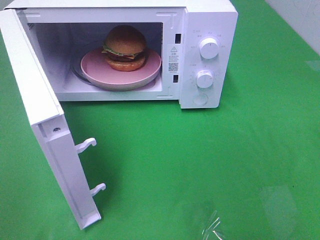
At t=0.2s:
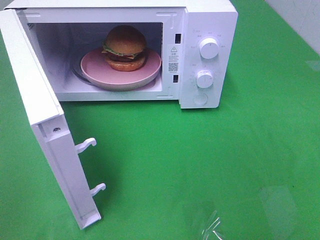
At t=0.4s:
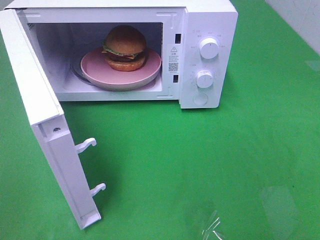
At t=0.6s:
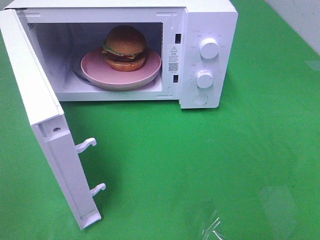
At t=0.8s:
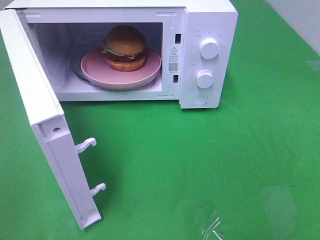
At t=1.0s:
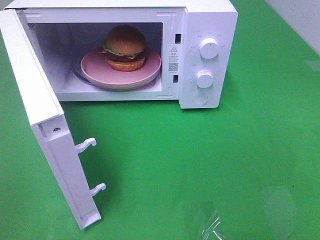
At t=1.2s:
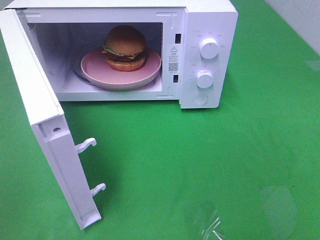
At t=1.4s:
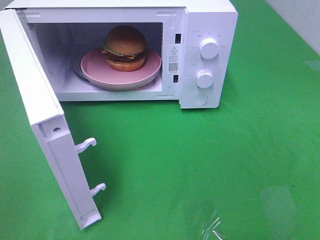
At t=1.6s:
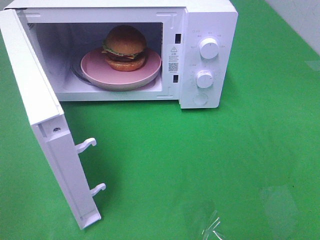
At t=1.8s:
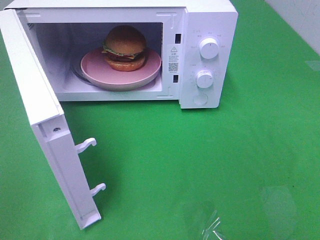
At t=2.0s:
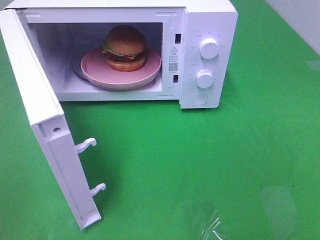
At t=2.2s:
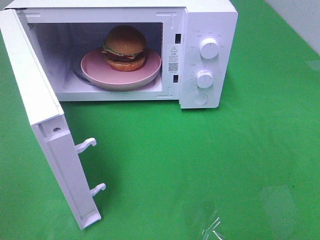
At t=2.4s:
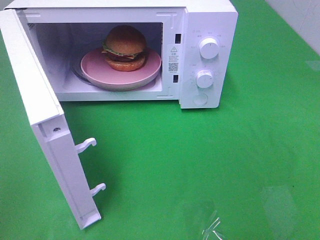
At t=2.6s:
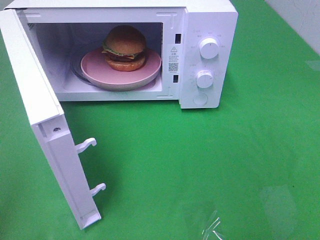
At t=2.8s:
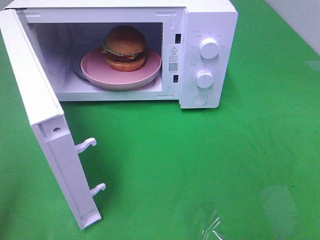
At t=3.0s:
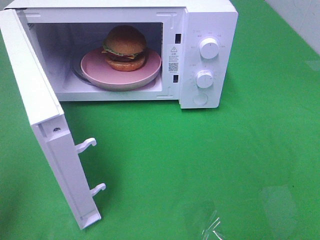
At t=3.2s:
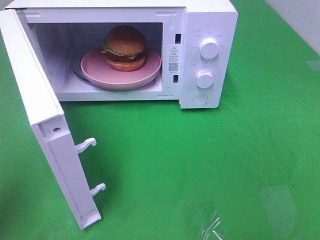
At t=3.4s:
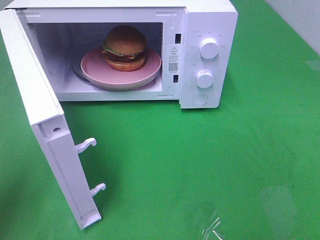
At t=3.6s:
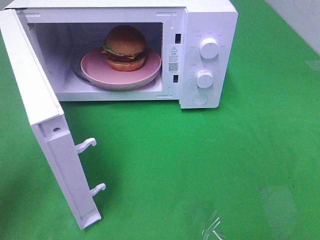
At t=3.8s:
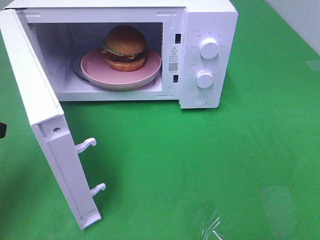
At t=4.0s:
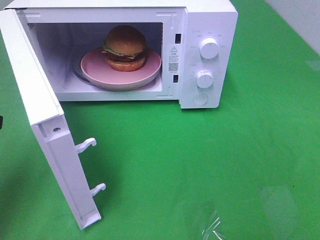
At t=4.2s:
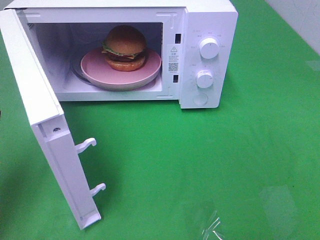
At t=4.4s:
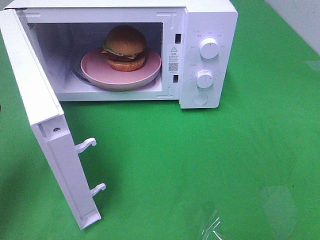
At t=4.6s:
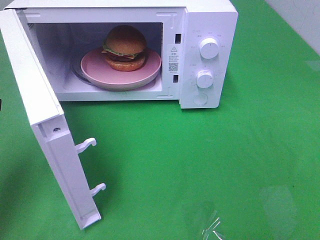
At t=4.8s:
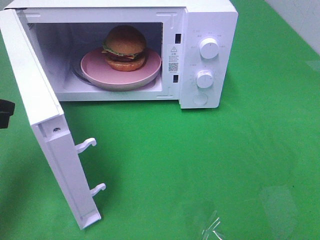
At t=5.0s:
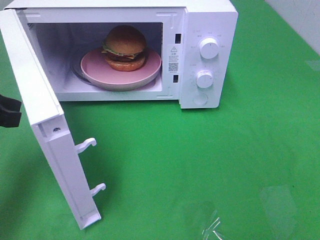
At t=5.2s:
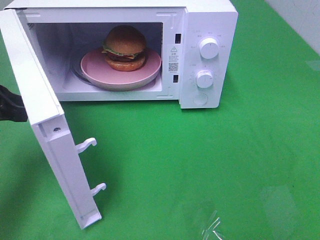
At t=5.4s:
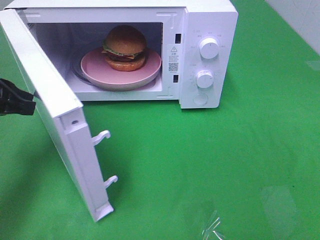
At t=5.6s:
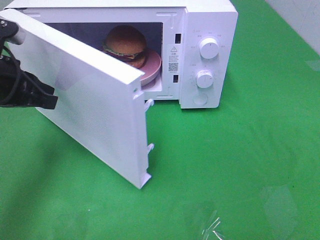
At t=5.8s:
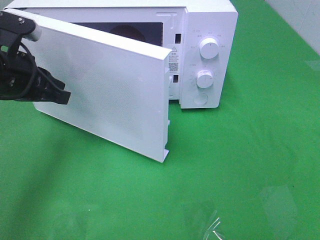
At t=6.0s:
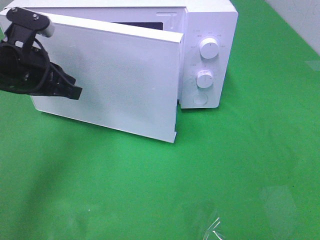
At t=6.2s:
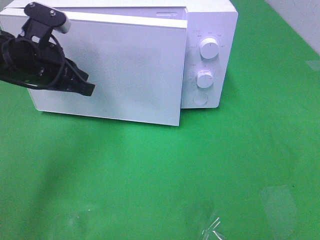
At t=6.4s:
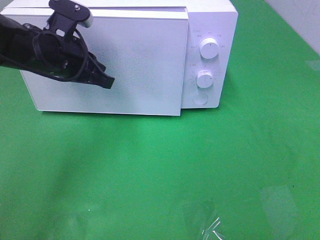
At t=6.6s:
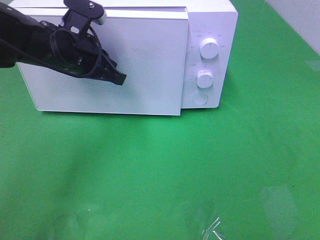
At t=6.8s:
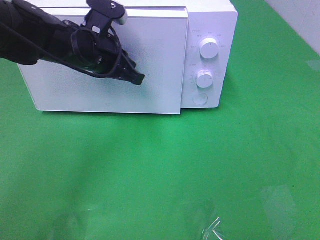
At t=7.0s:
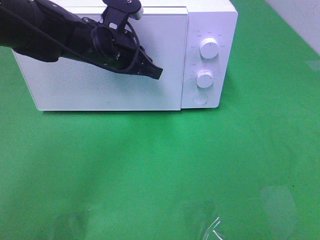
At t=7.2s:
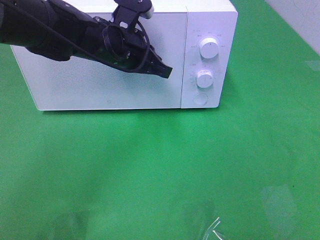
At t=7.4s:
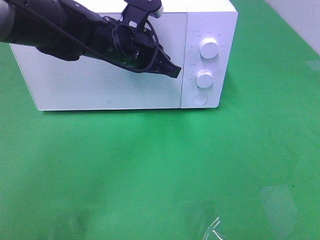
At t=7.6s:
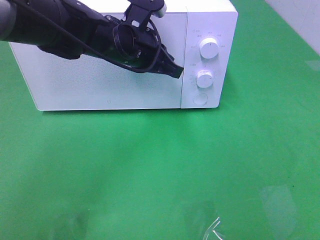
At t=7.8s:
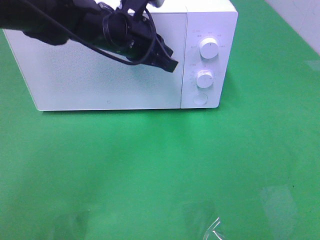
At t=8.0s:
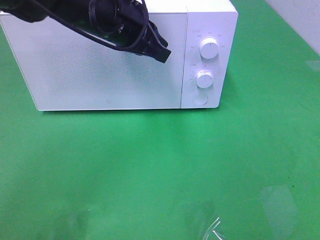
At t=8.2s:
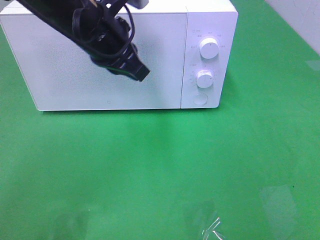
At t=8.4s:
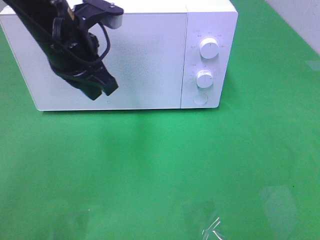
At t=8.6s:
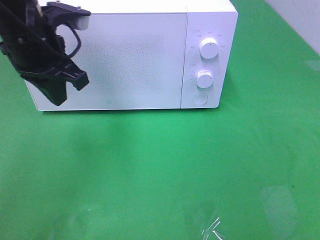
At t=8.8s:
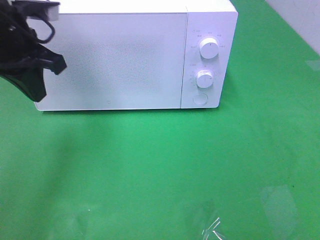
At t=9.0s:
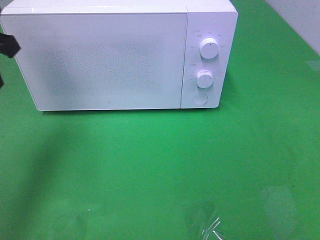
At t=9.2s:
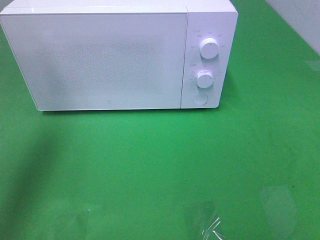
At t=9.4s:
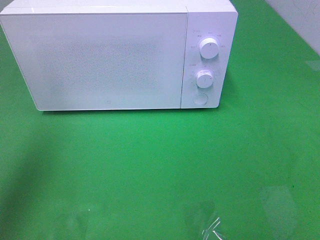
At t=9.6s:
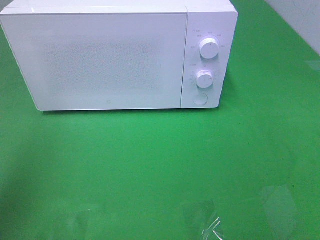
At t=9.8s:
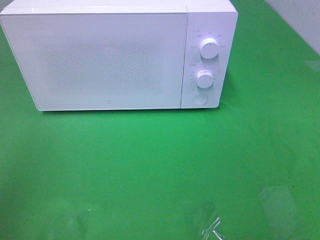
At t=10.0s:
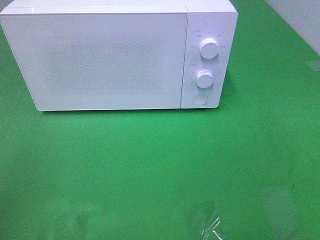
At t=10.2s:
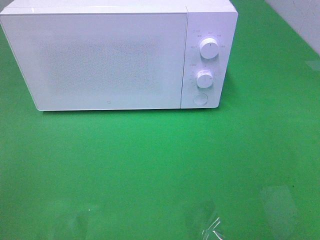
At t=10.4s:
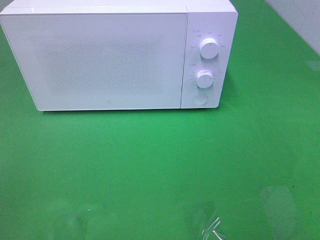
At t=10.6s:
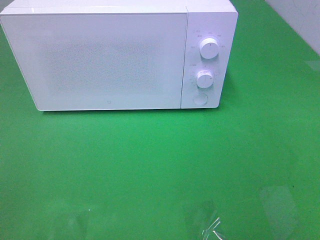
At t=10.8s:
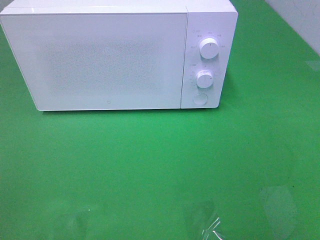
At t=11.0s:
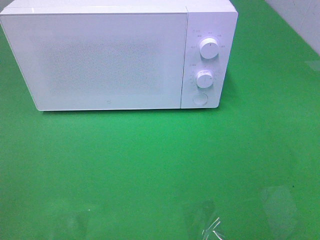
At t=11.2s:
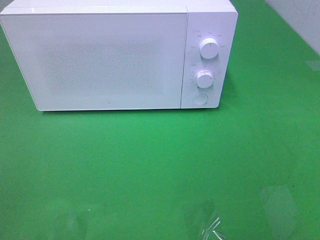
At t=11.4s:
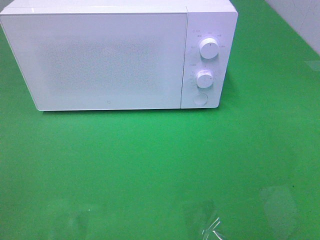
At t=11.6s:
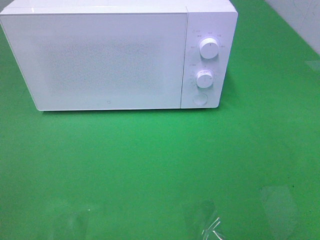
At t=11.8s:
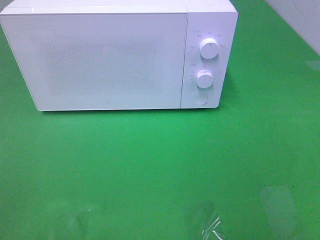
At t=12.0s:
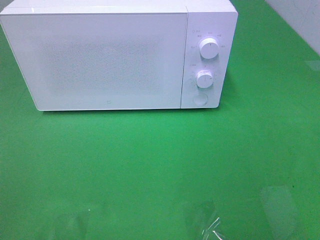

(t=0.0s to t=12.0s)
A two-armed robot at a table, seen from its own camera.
Task of the whole recording: Heat the burger.
Step, t=0.0s - t=7.6s: Left hand: close the microwave door.
t=3.0s - t=4.4s: The left gripper shifts approximately 10 cm forward and downward.
t=4.4s - t=6.0s: The left gripper goes about 15 cm forward and to the right.
t=6.0s - t=7.6s: The left gripper moves to the right, about 15 cm.
t=7.6s - t=9.0s: The left gripper heads to the left and upward, covering about 25 cm.
t=9.0s - t=10.4s: The left gripper goes approximately 30 cm backward.

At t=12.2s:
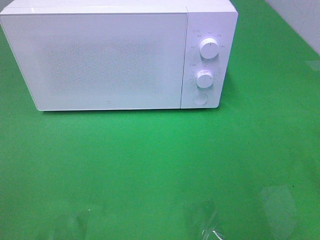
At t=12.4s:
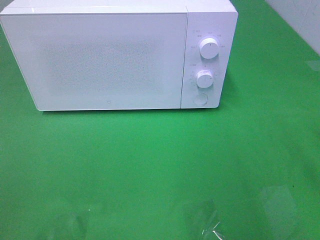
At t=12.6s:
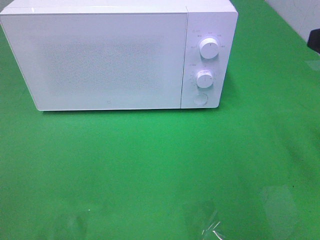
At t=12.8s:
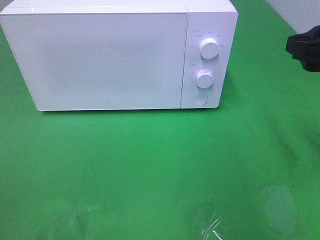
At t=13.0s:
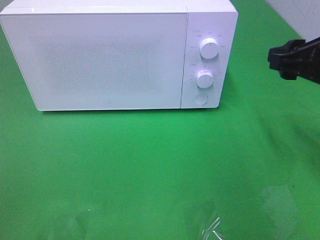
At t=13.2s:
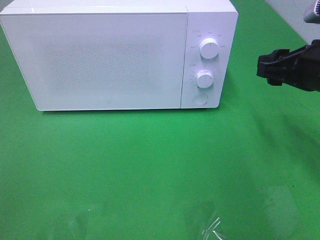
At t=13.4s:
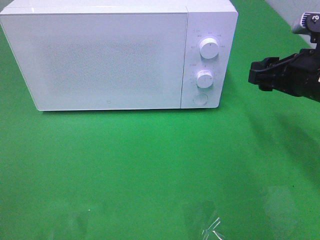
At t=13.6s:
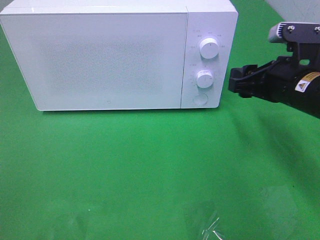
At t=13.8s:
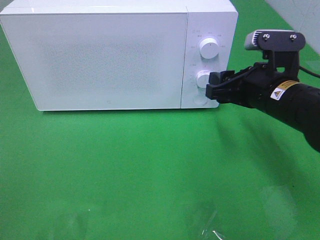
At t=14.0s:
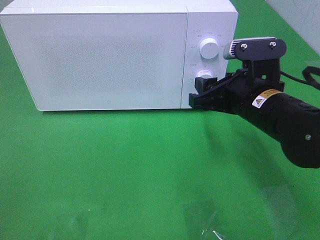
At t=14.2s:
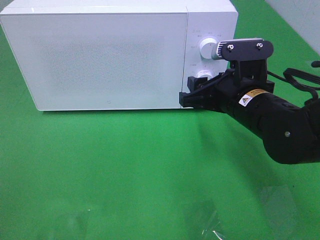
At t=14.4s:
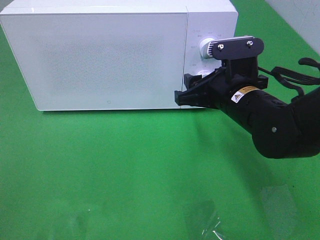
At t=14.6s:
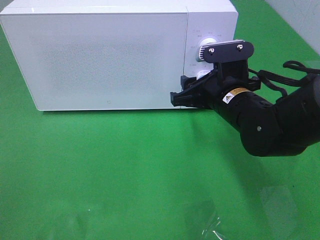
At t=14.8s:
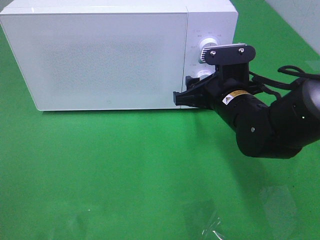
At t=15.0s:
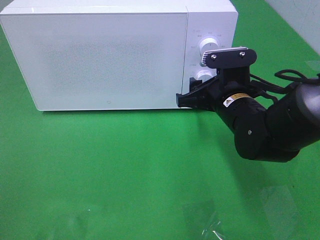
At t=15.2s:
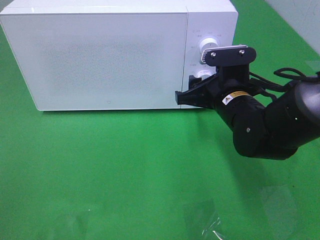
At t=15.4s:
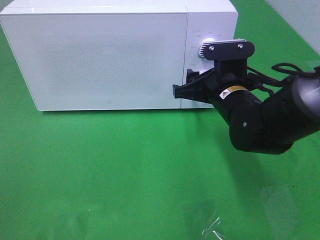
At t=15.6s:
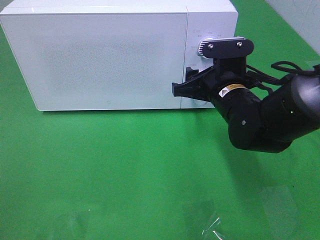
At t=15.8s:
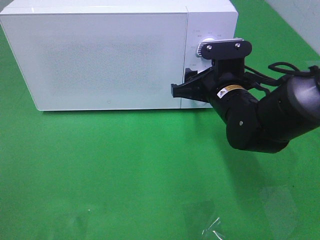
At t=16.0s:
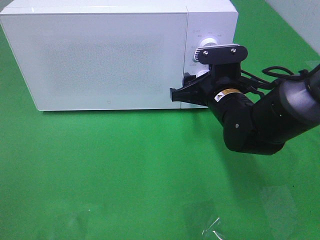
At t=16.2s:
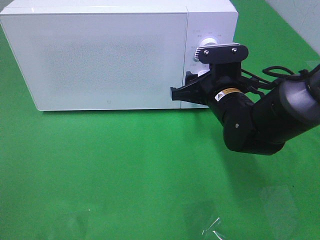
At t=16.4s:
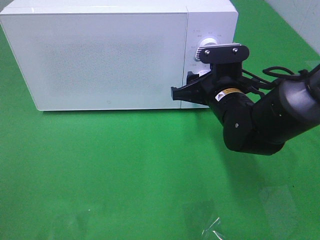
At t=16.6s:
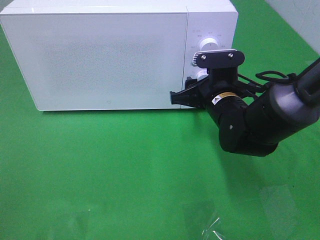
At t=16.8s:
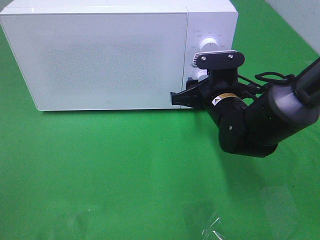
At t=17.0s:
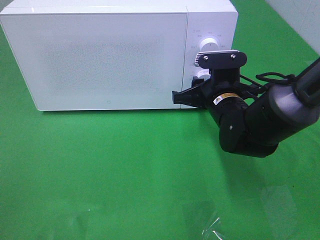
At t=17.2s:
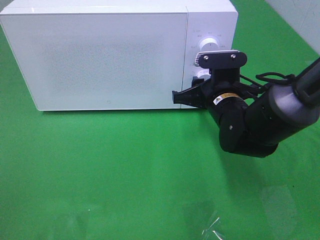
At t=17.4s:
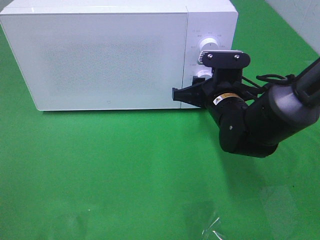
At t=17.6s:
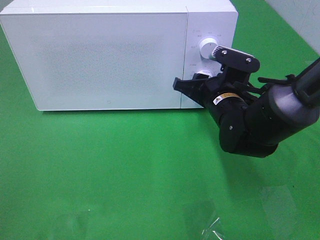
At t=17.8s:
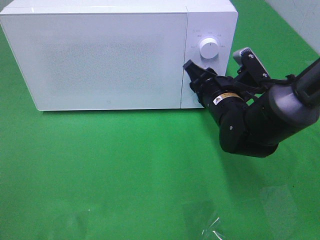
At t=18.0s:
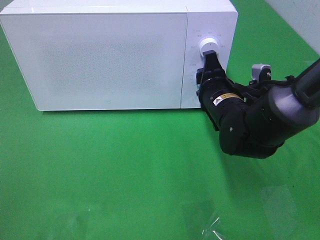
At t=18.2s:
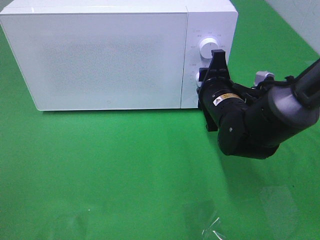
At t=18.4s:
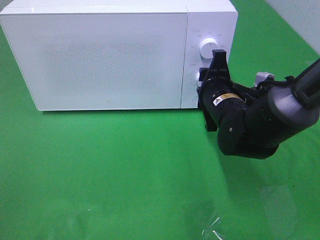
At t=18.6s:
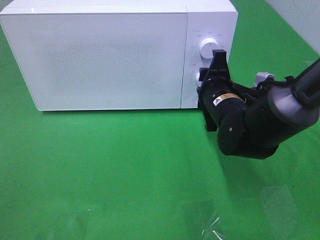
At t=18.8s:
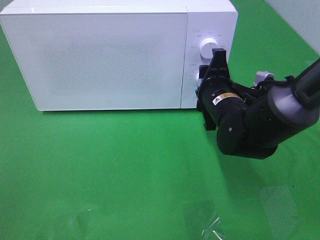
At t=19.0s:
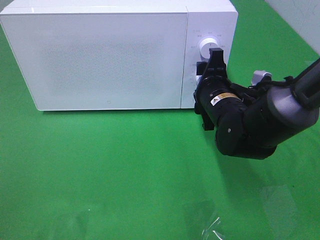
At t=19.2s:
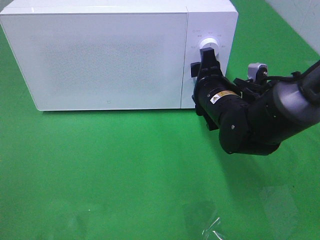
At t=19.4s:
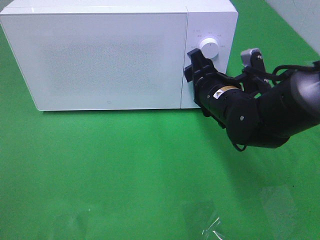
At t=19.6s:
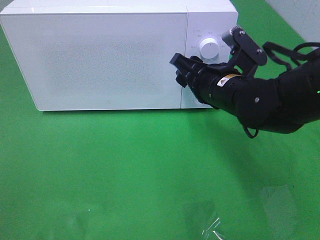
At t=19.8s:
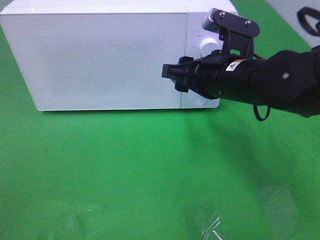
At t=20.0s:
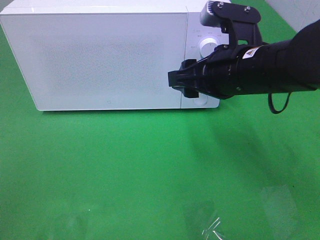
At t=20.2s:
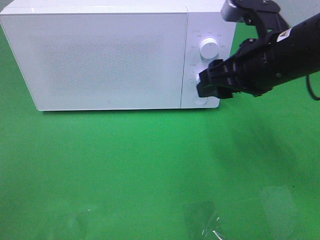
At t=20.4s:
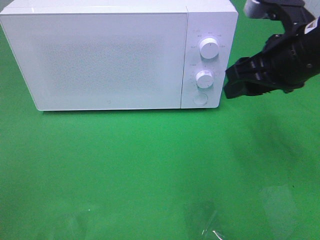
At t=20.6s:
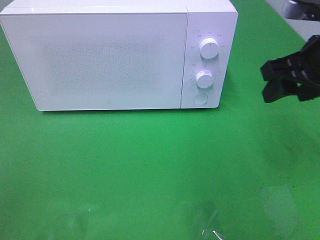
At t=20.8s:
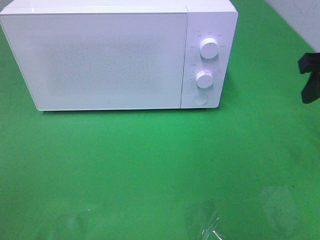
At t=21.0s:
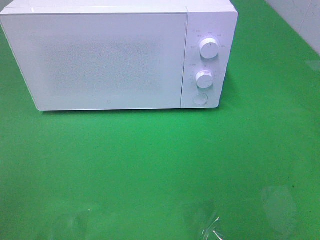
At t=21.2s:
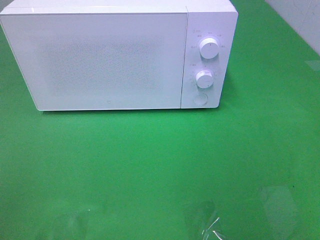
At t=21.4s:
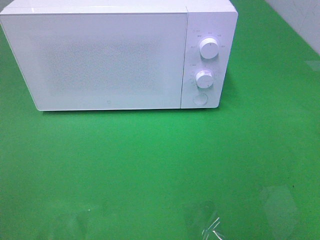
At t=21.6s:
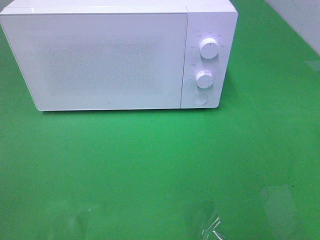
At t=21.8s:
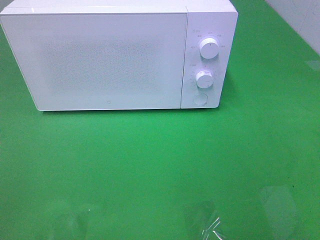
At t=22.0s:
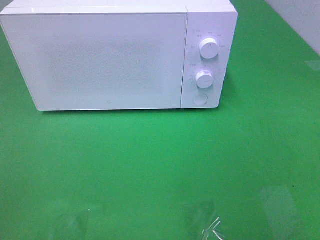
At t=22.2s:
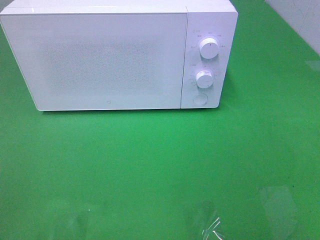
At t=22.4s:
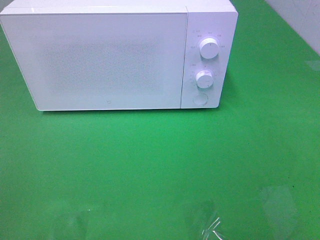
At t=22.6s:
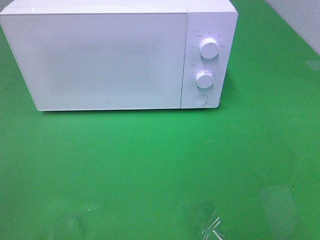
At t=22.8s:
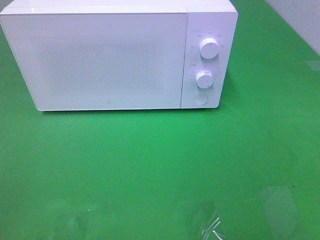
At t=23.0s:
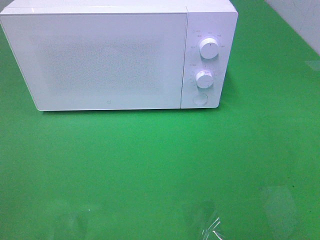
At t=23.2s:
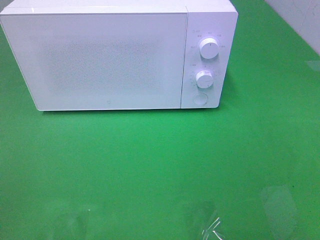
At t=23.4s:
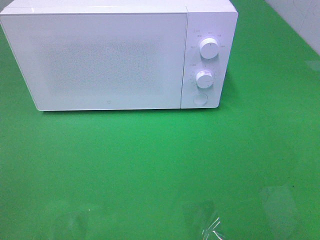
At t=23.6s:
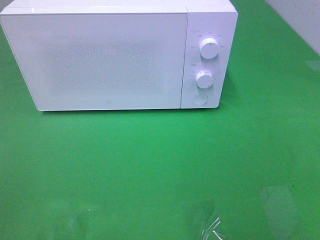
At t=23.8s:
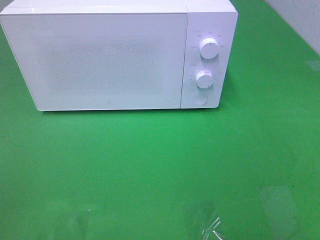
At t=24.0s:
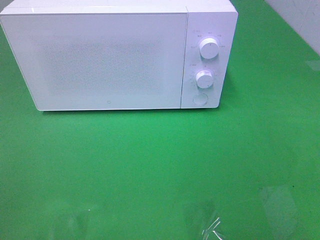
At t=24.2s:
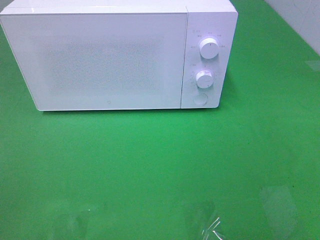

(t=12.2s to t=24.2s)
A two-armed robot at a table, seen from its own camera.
Task of the whole recording: Heat the burger.
Step, t=12.2s - t=19.0s: Right hand: twist timer button.
t=12.2s - t=13.8s: The right gripper heads forward, downward and to the left, covering roughly 20 cm.
t=13.8s - t=15.2s: The right gripper moves roughly 5 cm.
t=15.2s - t=16.6s: The grippers move only a little.
t=18.2s - t=19.8s: The right gripper goes some 10 cm upward.
t=19.8s - t=21.2s: The right gripper moves to the right, backward and upward, roughly 25 cm.
t=22.6s - t=24.2s: Both grippers stay about where they are.
